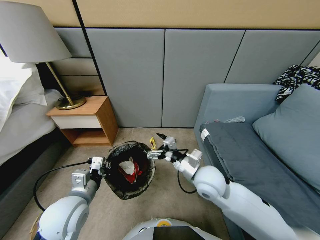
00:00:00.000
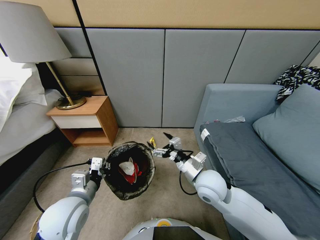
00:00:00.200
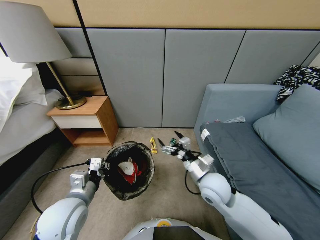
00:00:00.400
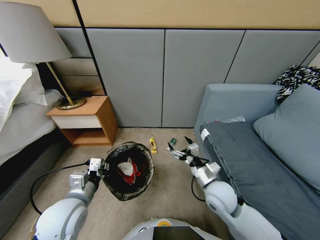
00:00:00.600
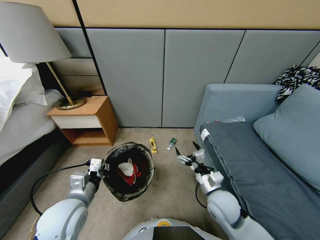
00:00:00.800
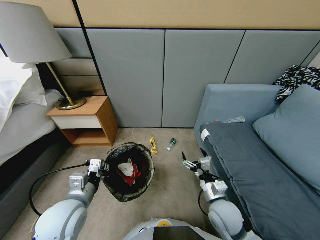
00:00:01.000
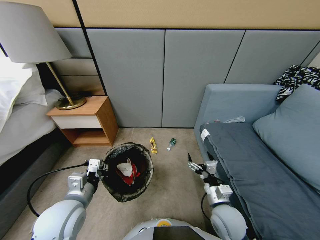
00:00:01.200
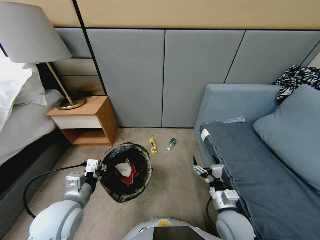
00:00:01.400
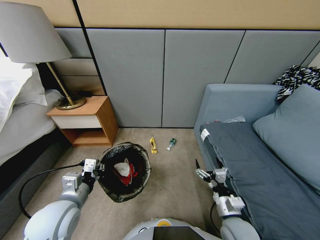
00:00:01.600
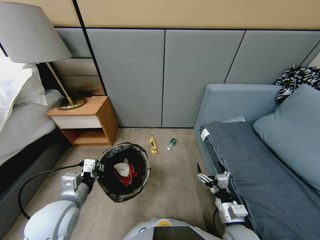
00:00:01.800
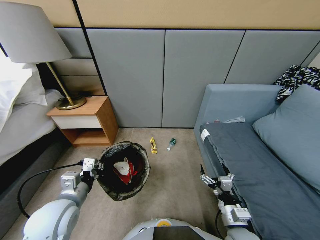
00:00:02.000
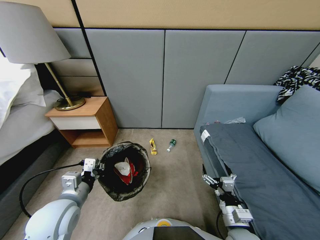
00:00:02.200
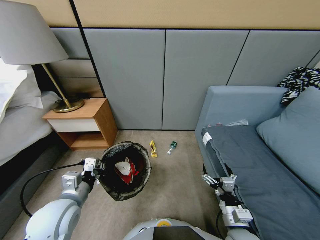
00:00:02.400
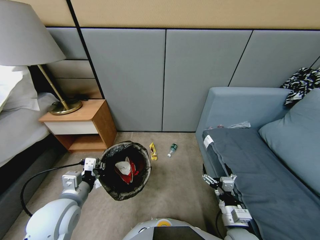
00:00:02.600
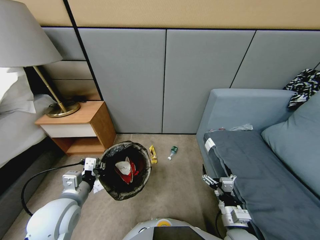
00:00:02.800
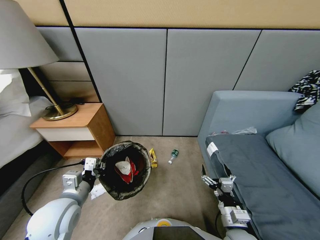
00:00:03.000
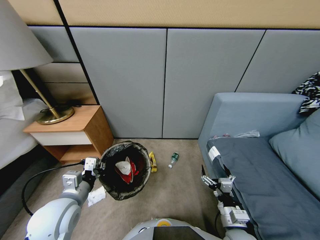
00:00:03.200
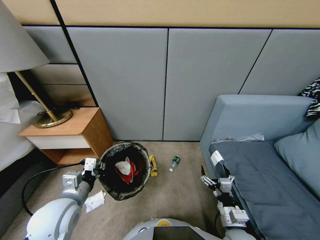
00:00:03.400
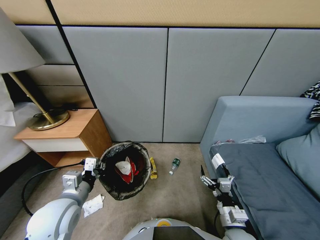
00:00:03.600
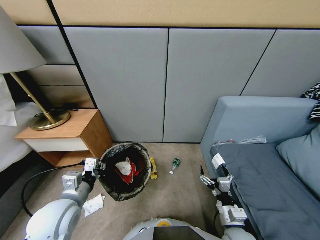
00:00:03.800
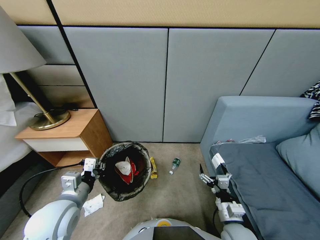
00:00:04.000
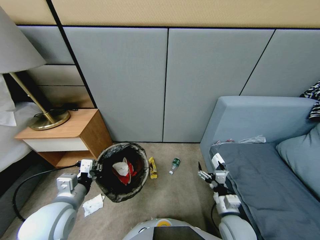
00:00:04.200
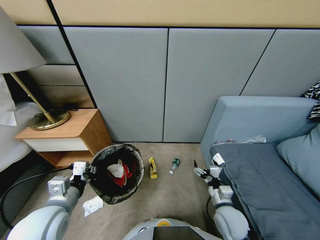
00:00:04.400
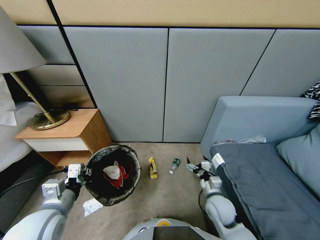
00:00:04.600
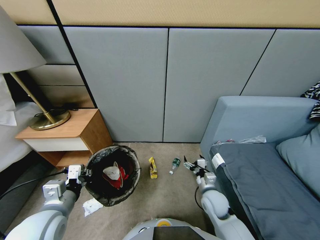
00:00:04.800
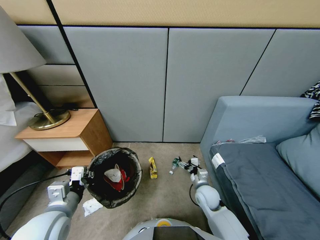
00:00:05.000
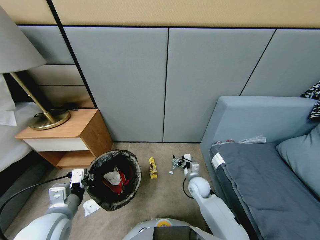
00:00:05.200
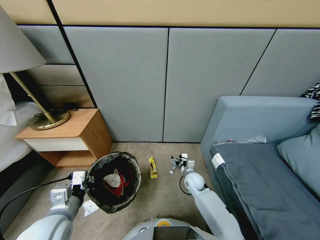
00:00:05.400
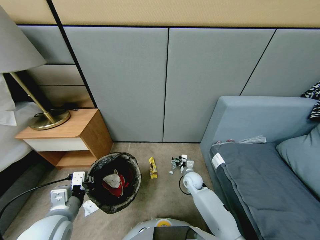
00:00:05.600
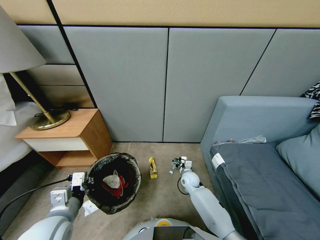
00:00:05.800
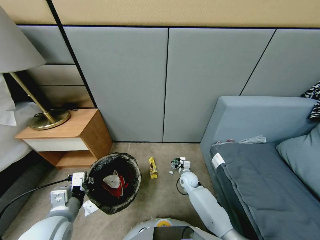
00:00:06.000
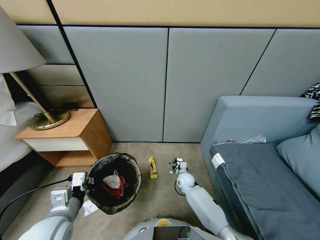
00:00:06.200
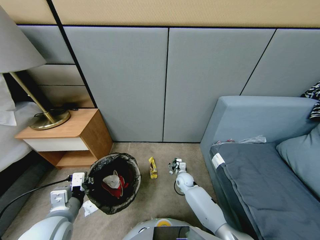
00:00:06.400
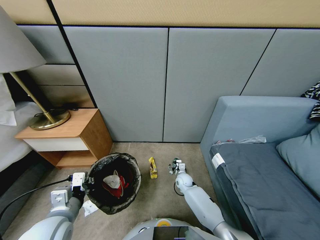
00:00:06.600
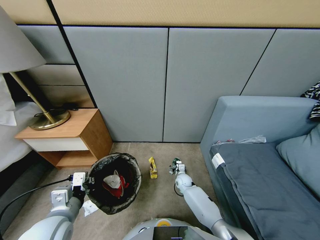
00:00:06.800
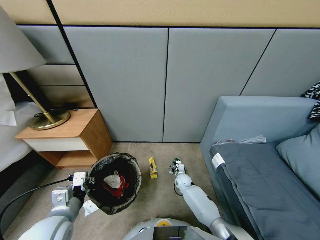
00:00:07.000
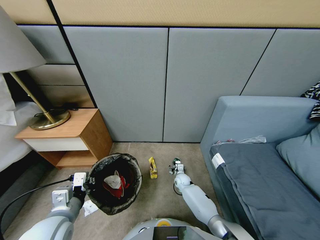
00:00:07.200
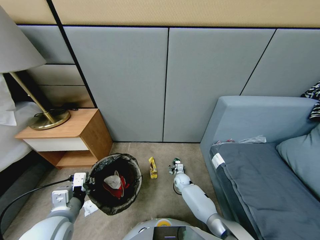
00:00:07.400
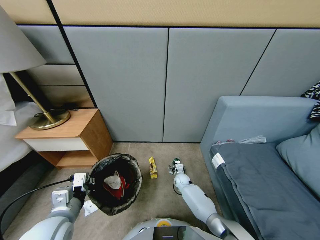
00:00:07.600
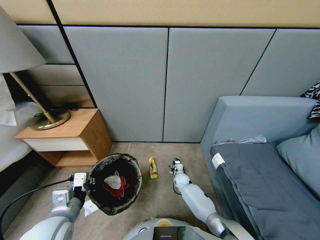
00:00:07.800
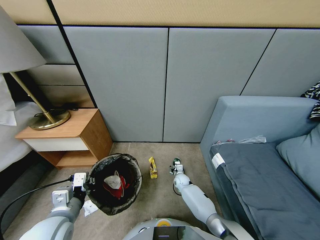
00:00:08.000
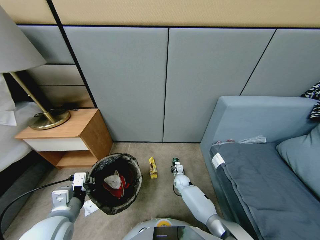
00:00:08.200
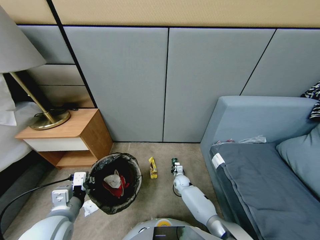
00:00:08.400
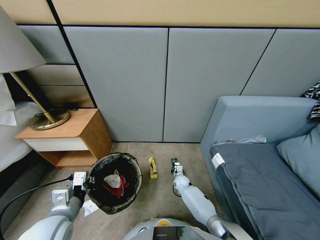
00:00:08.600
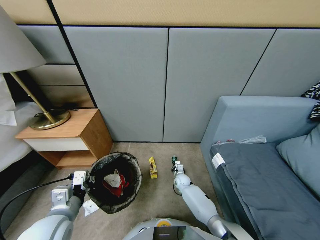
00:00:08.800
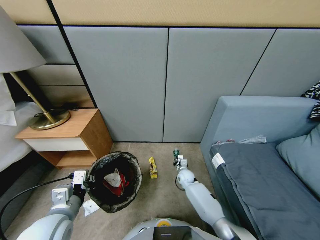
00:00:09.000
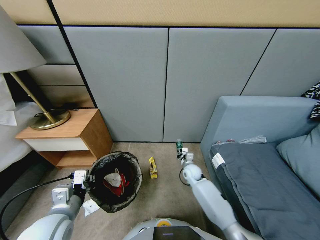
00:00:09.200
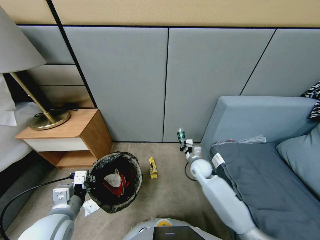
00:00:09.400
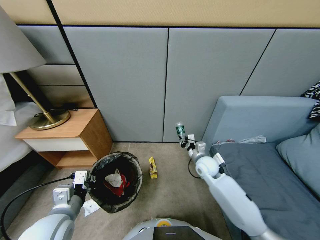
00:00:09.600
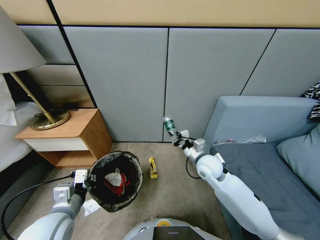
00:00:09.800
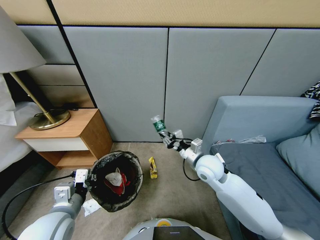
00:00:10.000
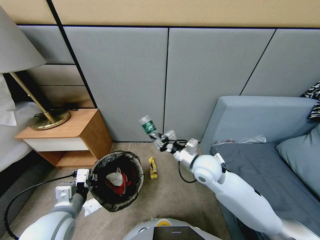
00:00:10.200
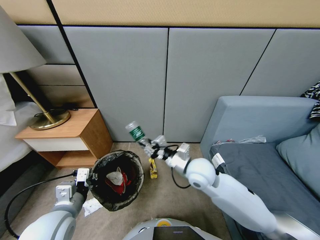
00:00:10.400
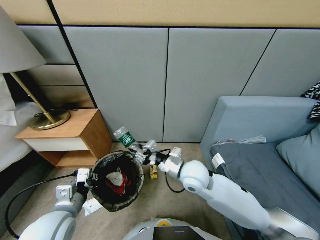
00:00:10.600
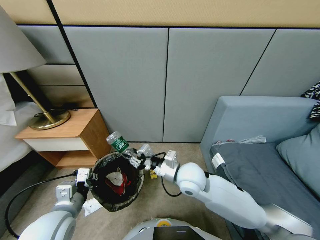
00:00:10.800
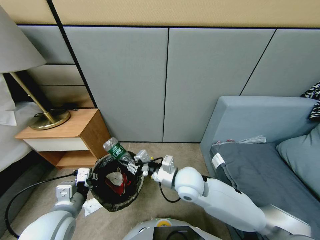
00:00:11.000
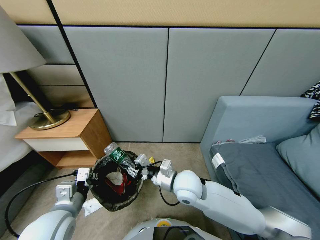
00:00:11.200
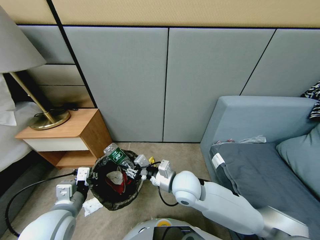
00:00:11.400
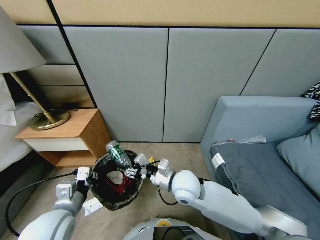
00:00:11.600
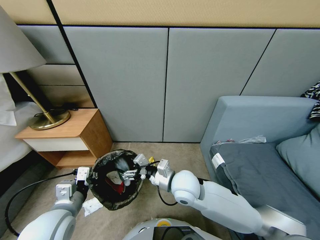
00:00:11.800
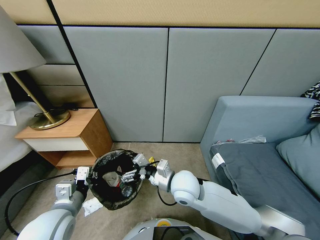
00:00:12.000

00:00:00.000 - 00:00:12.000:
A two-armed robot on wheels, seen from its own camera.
Task of the whole recording: Pick up the trash bin, then pick up the garbage from the floor and place it into the trash bin.
00:00:00.000 - 00:00:01.600: The right gripper travels backward, downward and to the right by about 20 cm.
00:00:03.000 - 00:00:04.400: The right gripper shifts about 10 cm forward.
00:00:04.400 - 00:00:06.000: The right gripper goes roughly 25 cm forward, downward and to the left.
00:00:06.000 - 00:00:07.600: The right gripper heads downward, covering about 5 cm.
00:00:07.600 - 00:00:09.000: The right gripper shifts roughly 10 cm upward, and closes its fingers.
00:00:09.000 - 00:00:10.400: The right gripper heads upward and backward, covering roughly 30 cm.
00:00:10.400 - 00:00:12.000: The right gripper changes place by about 5 cm, and opens up.

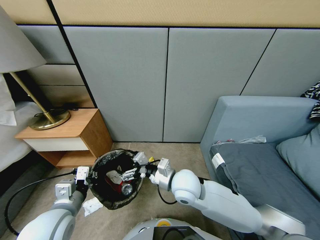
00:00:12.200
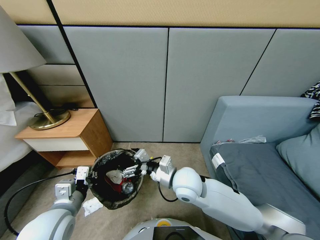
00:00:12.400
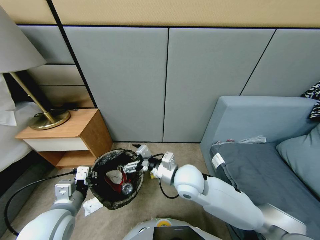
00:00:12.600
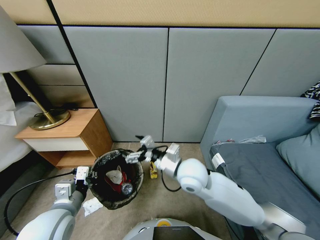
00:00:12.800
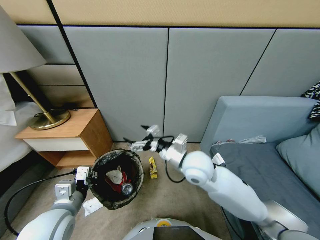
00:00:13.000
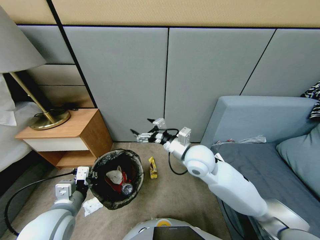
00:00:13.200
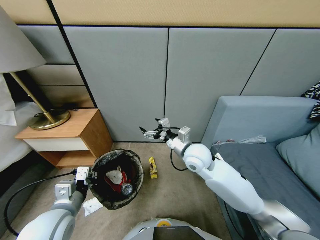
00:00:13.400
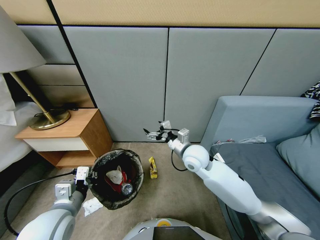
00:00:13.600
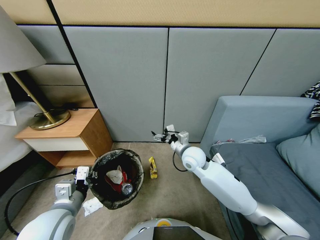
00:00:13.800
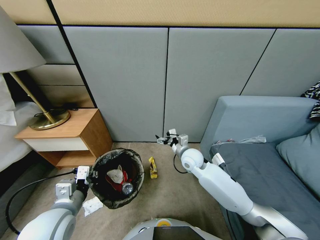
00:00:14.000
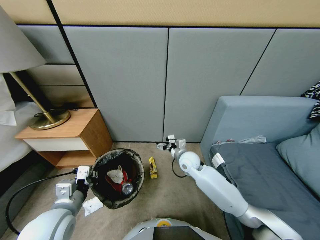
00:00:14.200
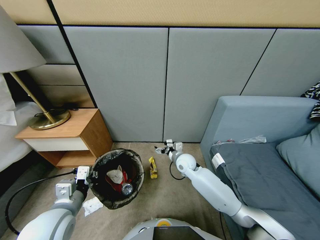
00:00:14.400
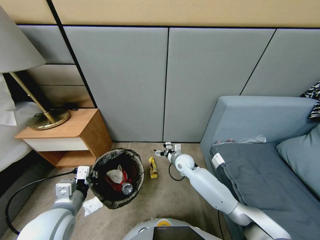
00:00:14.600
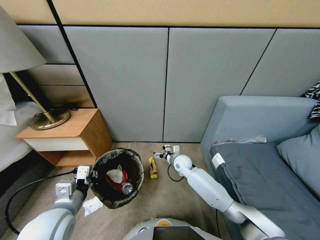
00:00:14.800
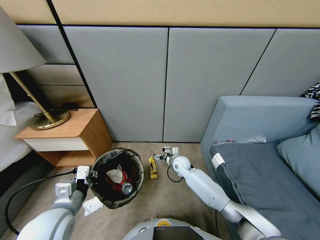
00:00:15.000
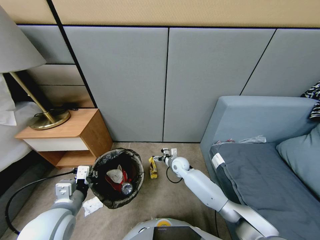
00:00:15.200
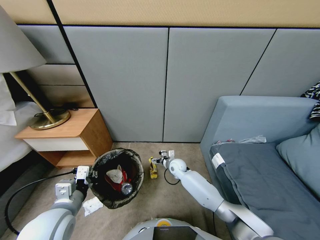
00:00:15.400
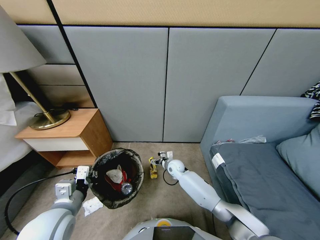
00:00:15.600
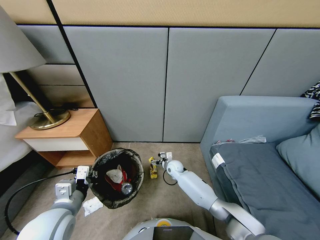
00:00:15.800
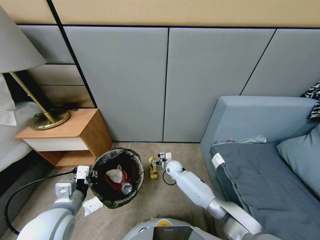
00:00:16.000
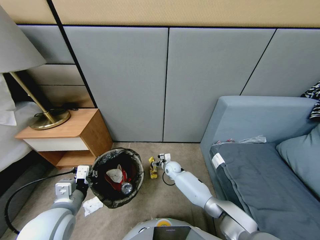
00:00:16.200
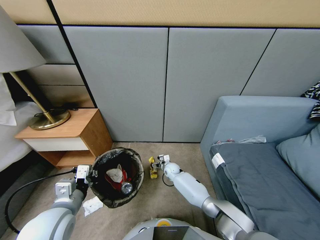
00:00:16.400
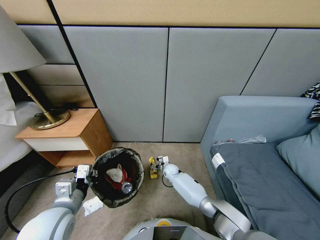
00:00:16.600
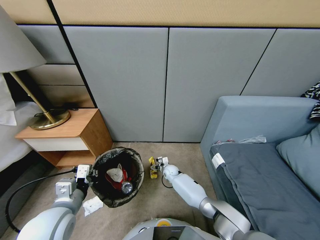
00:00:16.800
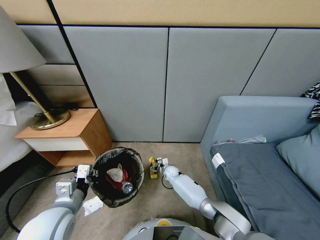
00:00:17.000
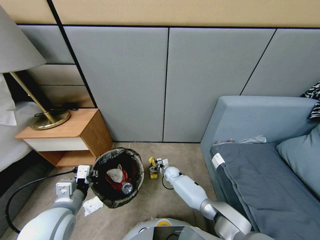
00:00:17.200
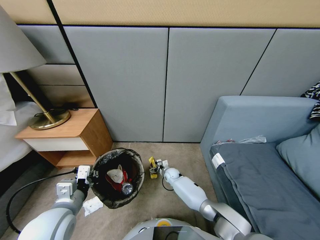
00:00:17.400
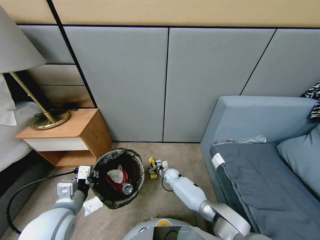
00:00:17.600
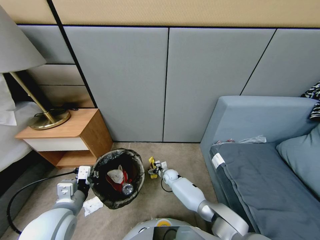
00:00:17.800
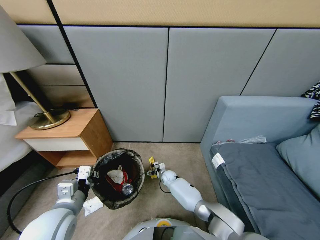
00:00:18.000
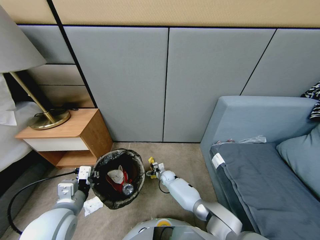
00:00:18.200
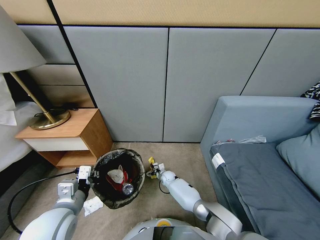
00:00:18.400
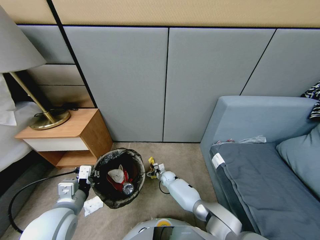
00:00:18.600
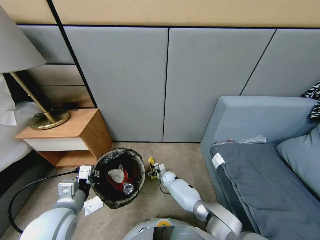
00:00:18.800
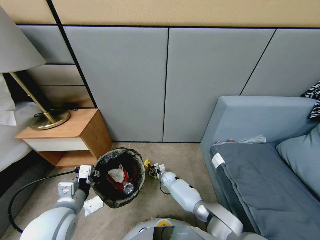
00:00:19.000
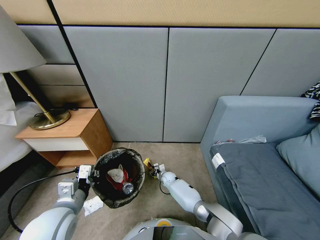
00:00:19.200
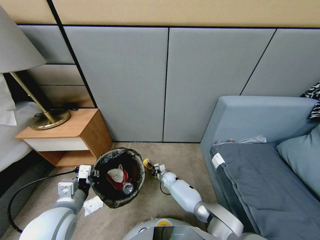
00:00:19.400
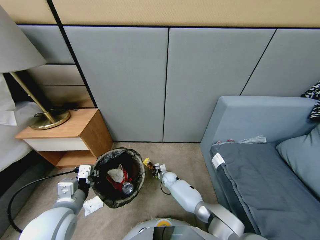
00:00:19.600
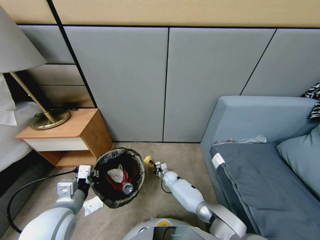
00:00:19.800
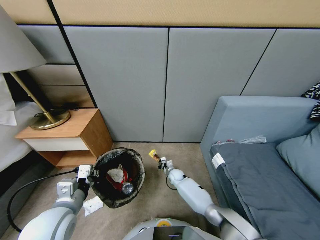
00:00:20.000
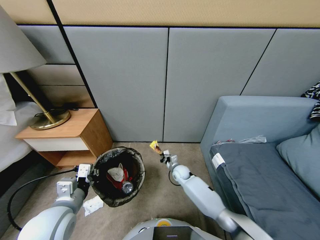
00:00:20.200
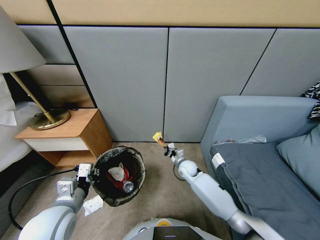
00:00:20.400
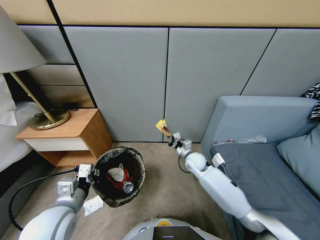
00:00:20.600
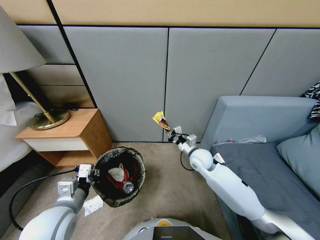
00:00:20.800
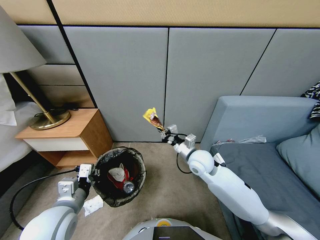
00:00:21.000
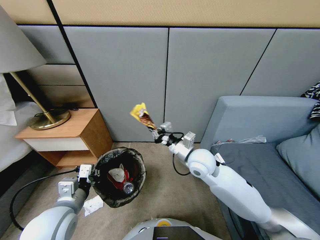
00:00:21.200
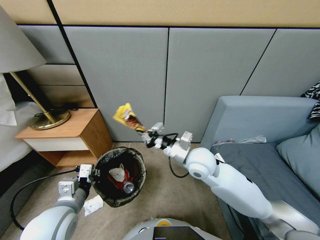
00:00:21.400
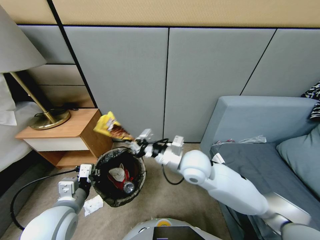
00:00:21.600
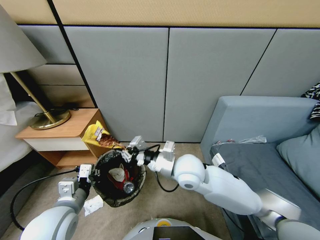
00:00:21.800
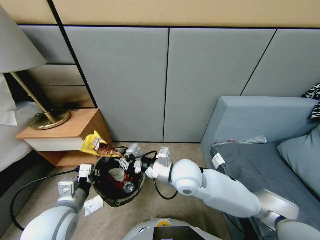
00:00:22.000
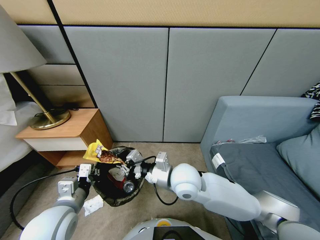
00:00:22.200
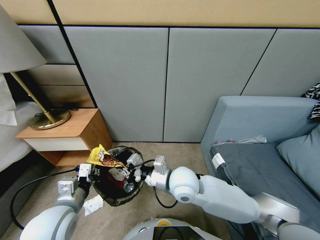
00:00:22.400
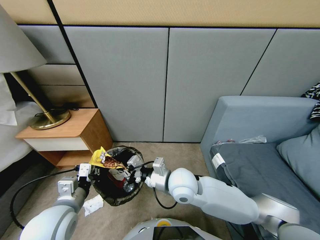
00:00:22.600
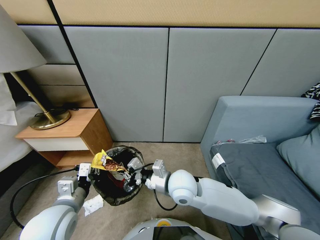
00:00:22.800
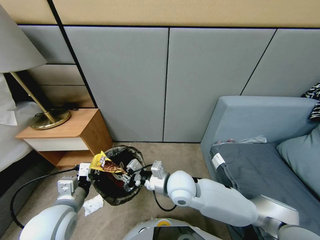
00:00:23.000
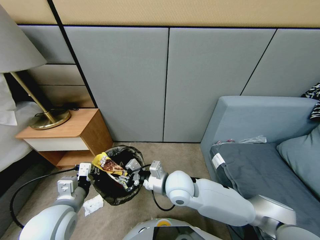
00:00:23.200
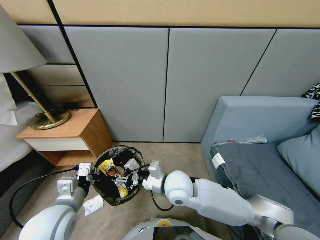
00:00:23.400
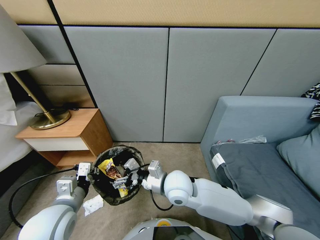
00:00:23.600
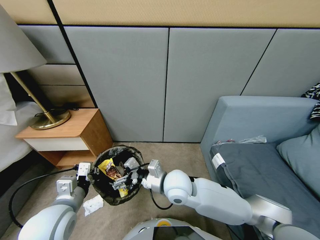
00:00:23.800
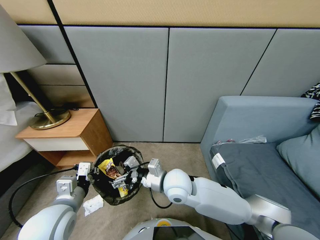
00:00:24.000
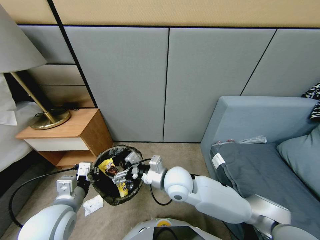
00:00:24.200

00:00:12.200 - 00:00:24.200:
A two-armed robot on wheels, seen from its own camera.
Task of the whole recording: Pick up the trash bin, then pick up the garbage from the floor and place it into the trash bin.
00:00:12.200 - 00:00:13.800: The right gripper travels forward, to the right and downward by some 15 cm.
00:00:13.800 - 00:00:15.200: The right gripper is displaced downward by about 15 cm.
00:00:15.200 - 00:00:16.600: The right gripper goes approximately 10 cm downward.
00:00:16.600 - 00:00:18.200: The right gripper ends up some 5 cm from where it was.
00:00:18.200 - 00:00:19.800: The right gripper closes its fingers.
00:00:19.800 - 00:00:21.200: The right gripper goes some 35 cm upward.
00:00:21.200 - 00:00:22.600: The right gripper travels to the left and backward by about 10 cm.
00:00:22.600 - 00:00:24.200: The right gripper opens up.
